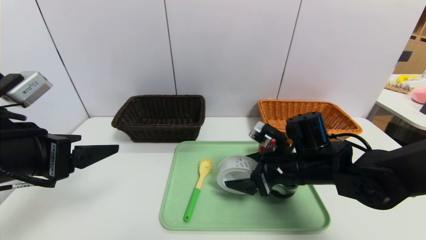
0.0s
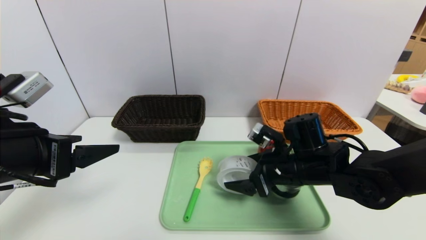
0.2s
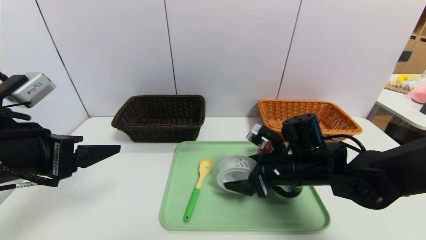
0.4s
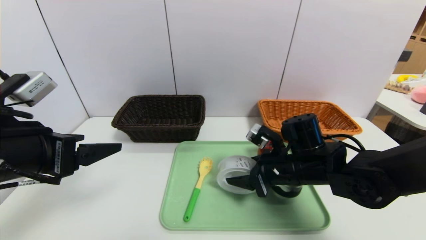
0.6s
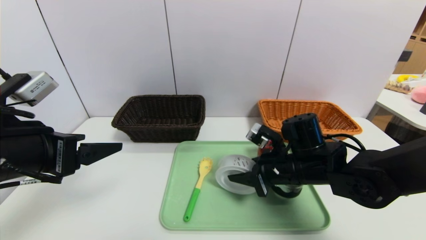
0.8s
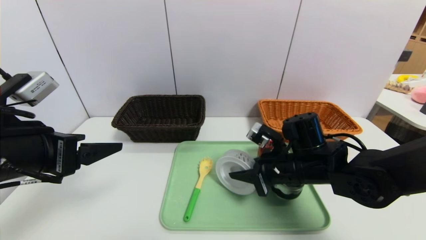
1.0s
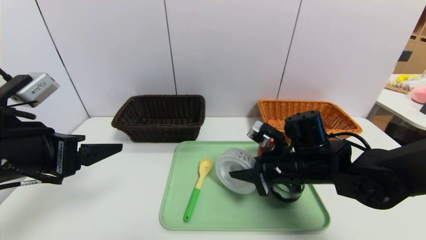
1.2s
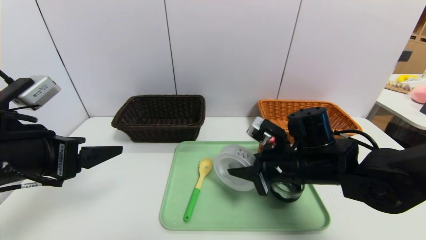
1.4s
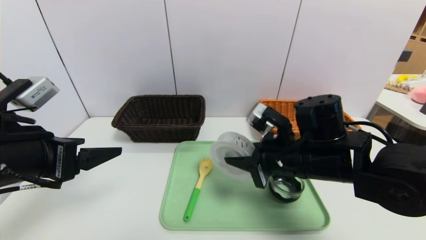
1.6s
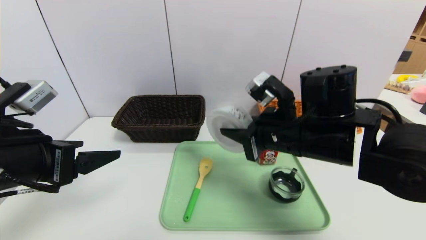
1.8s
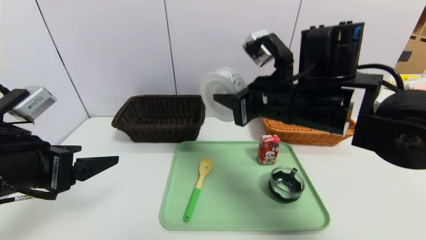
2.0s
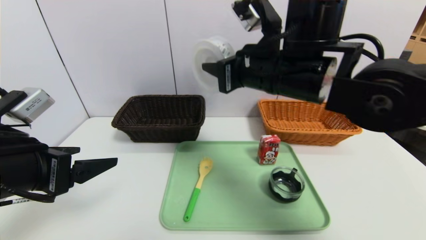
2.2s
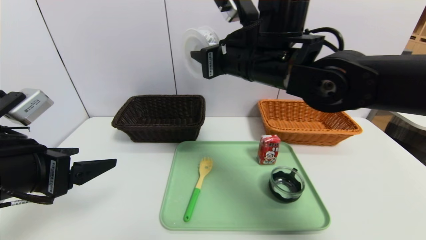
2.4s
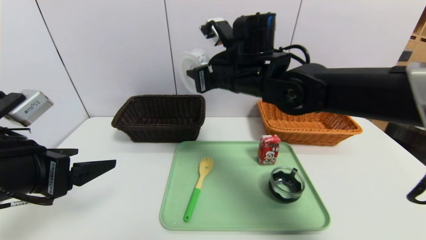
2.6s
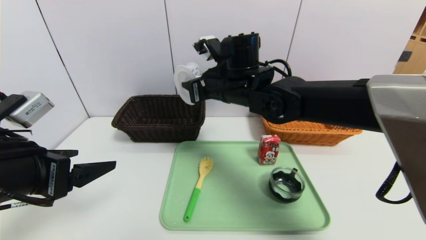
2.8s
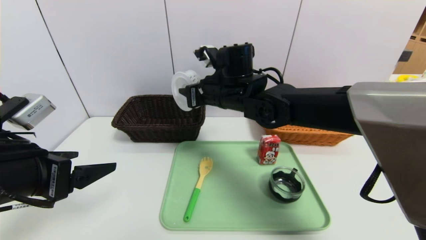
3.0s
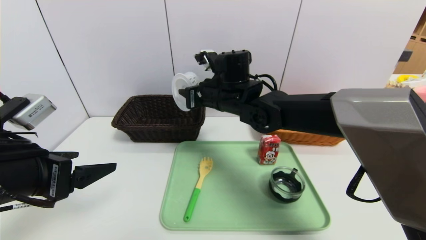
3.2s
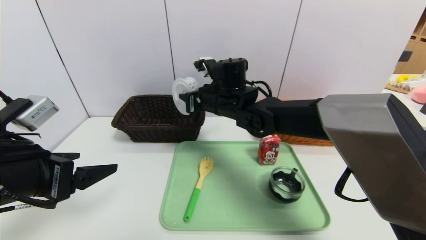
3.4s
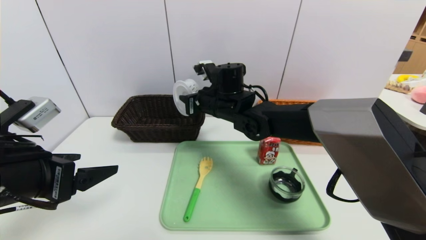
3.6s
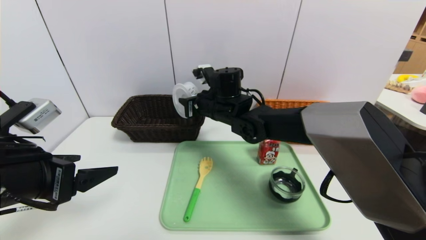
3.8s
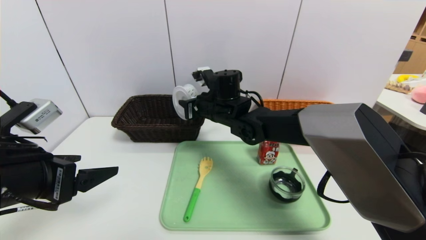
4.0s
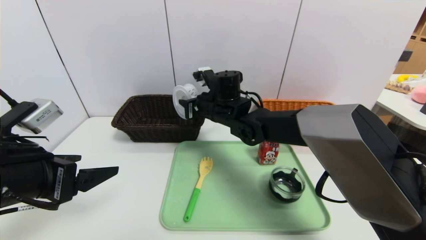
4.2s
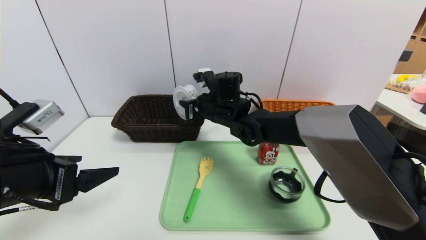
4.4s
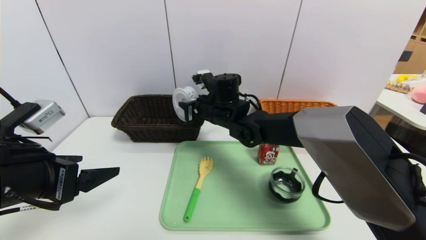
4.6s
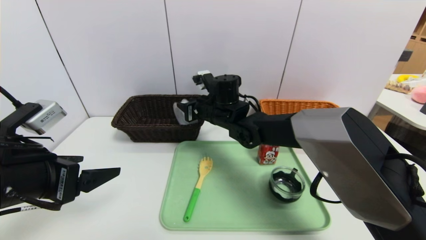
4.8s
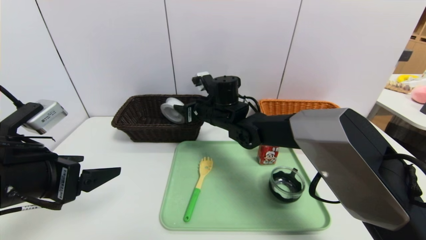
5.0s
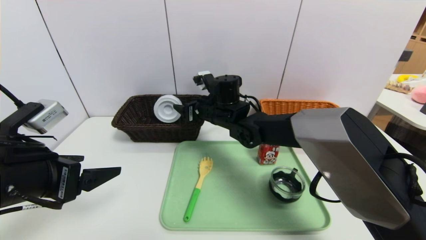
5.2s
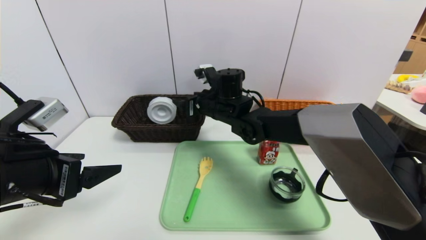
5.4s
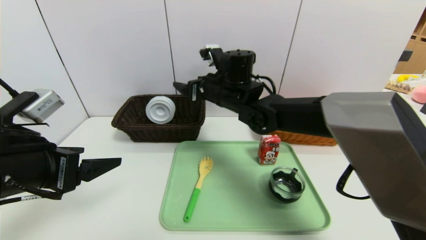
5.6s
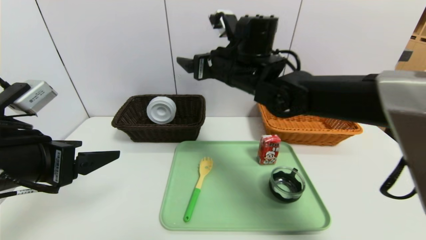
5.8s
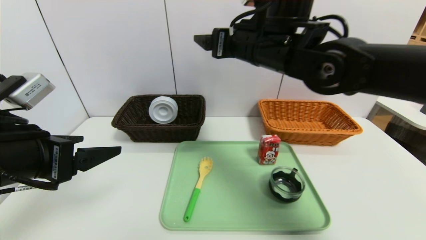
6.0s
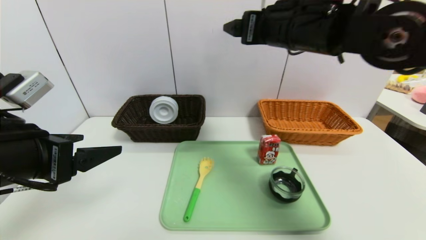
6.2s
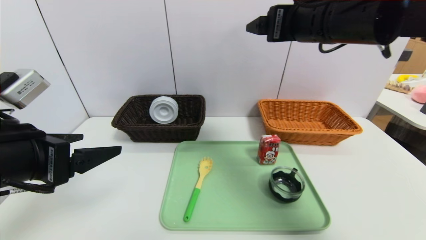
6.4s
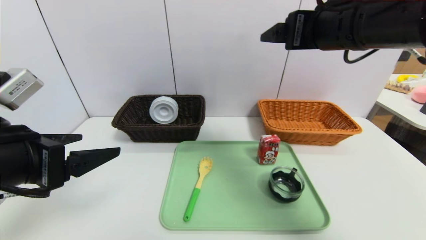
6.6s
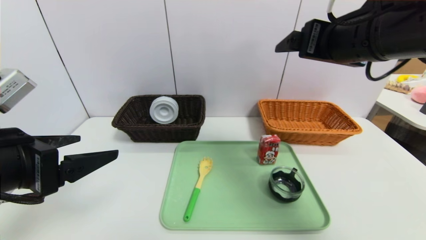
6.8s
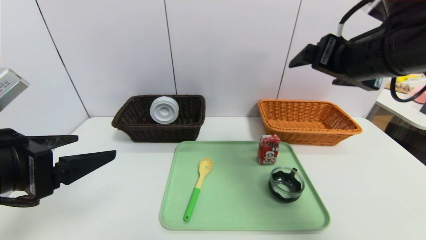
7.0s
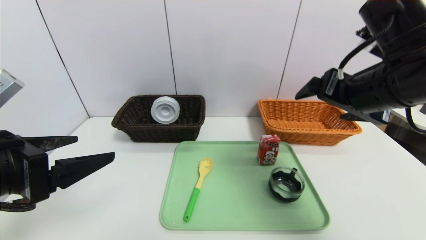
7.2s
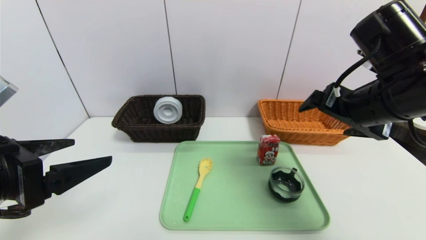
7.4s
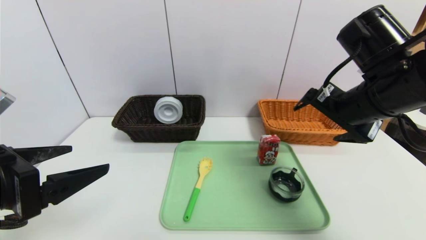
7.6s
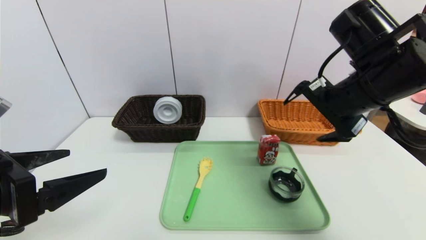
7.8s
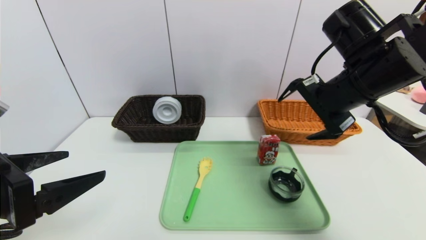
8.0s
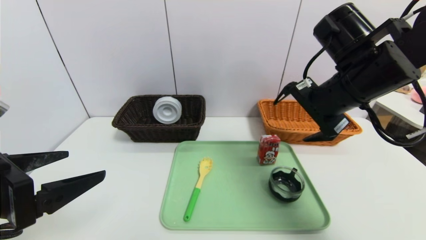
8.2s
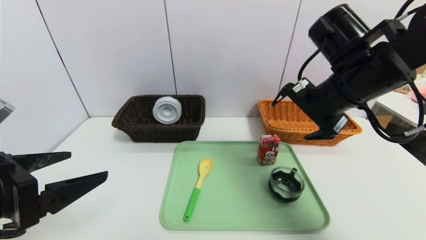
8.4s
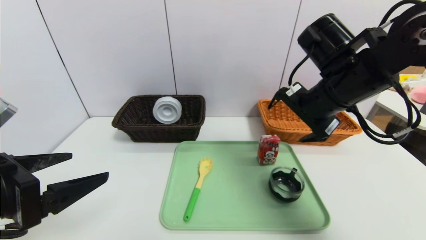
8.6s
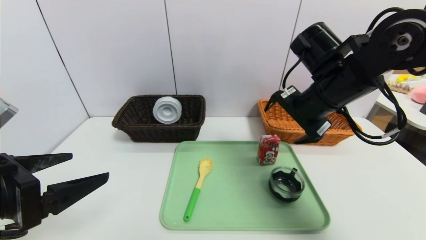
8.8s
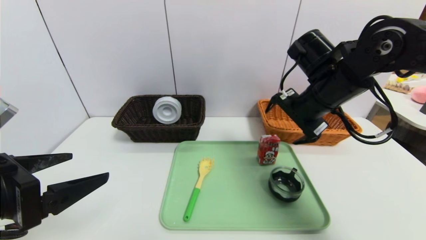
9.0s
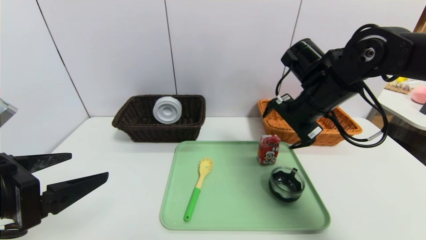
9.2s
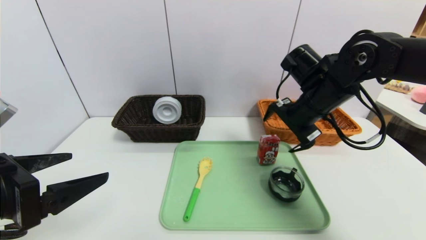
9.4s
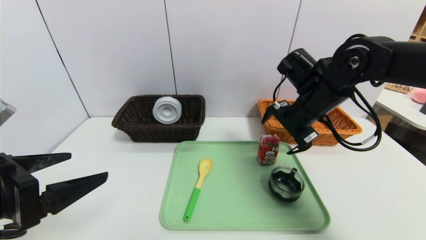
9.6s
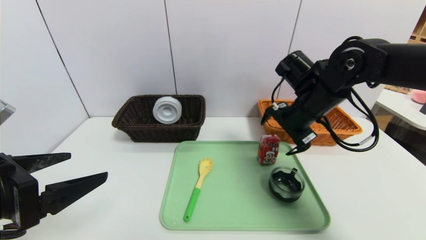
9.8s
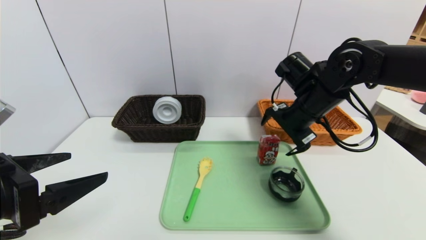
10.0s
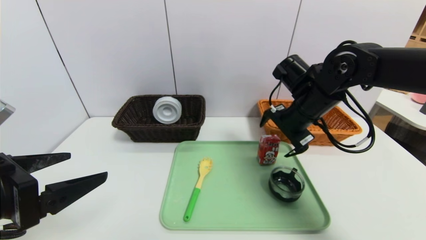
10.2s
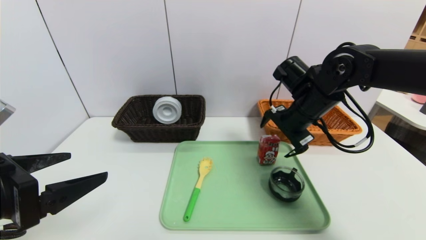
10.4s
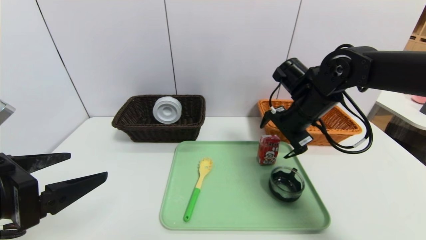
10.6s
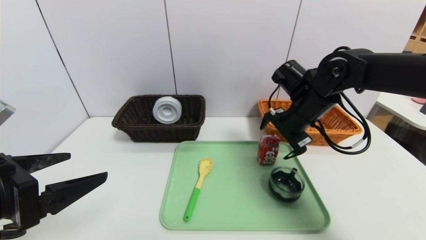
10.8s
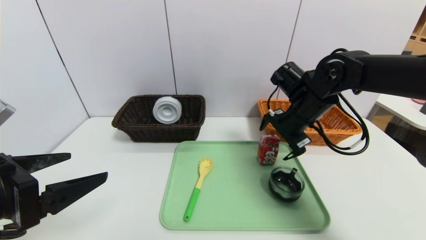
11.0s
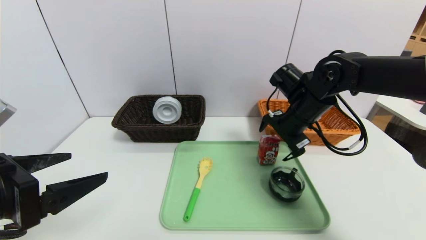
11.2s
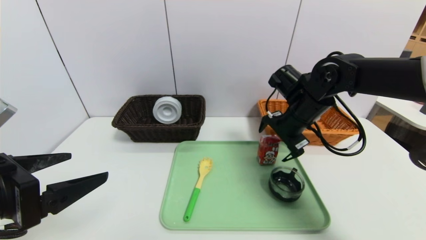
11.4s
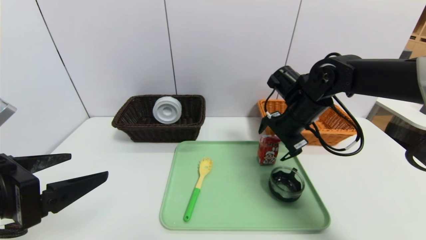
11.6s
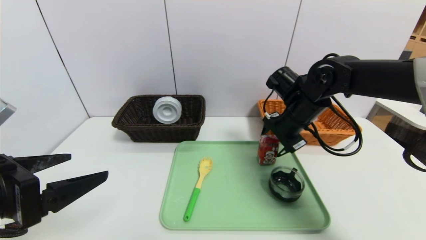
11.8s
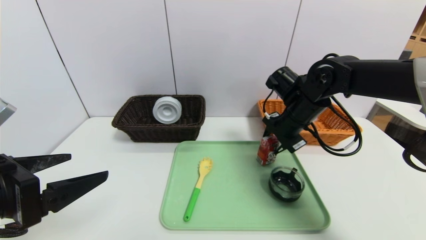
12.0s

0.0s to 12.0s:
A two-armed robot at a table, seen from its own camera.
Task of the whole recording: place the food in the right basket with the right gripper, and place the non food items in the left basket with the left gripper.
0.0s to 1.6s: The right gripper moves upward, roughly 5 cm, and closes.
1.6s to 3.0s: The right gripper is displaced forward, to the left and upward by roughly 20 cm.
3.0s to 4.4s: The right gripper travels downward by roughly 5 cm.
4.4s to 6.0s: The right gripper is displaced upward, to the right and backward by approximately 20 cm, and opens.
6.0s to 7.6s: The right gripper goes about 15 cm to the right and backward.
7.6s to 9.0s: The right gripper moves forward, approximately 5 cm.
9.0s to 10.4s: The right gripper shifts by about 5 cm.
10.4s to 12.0s: The right gripper closes up.

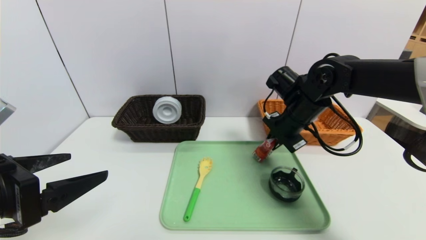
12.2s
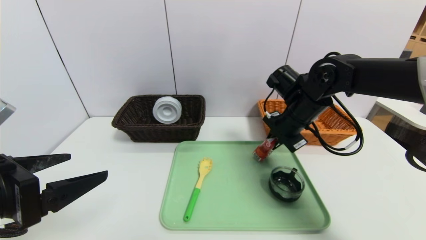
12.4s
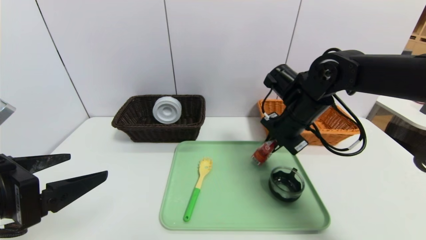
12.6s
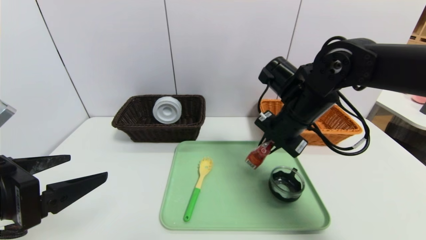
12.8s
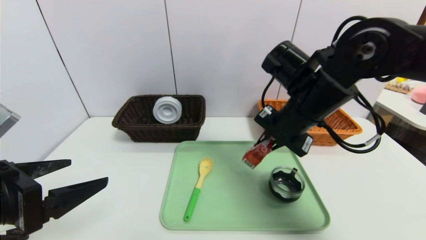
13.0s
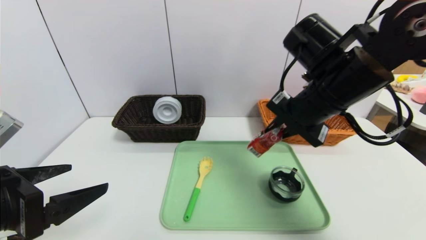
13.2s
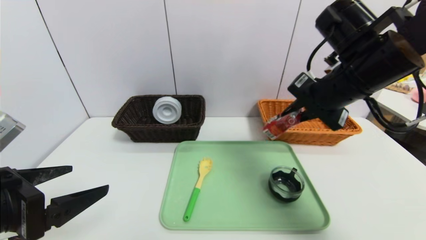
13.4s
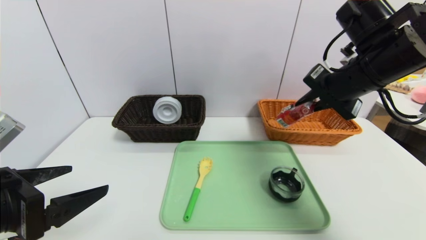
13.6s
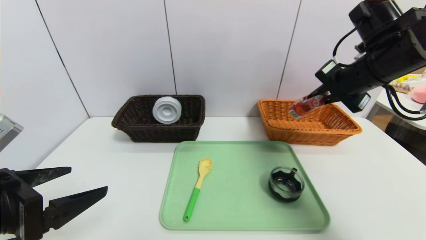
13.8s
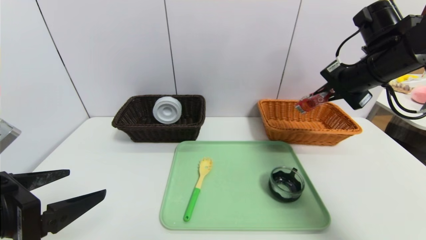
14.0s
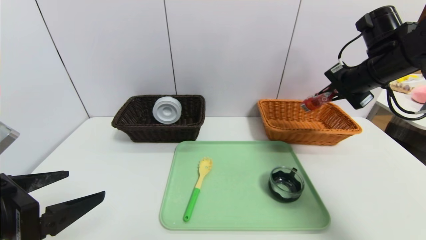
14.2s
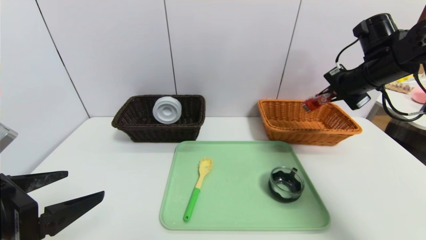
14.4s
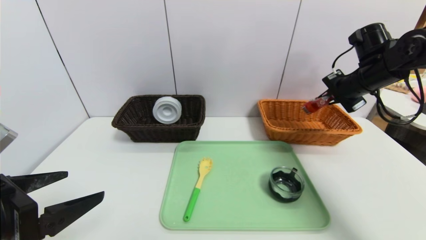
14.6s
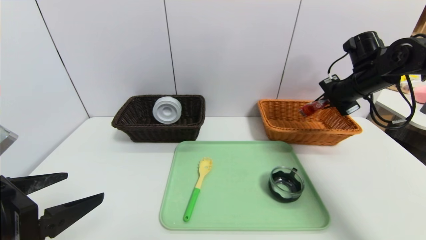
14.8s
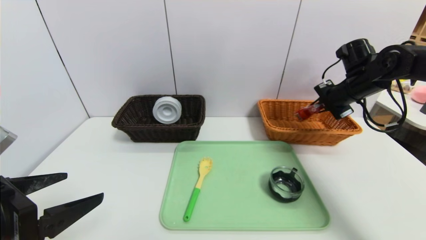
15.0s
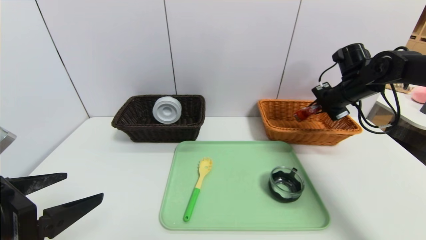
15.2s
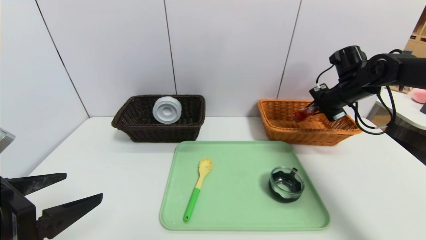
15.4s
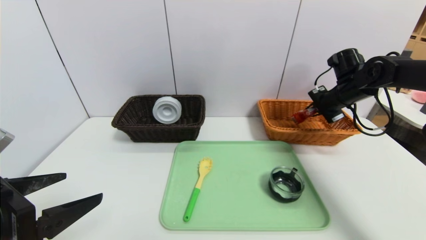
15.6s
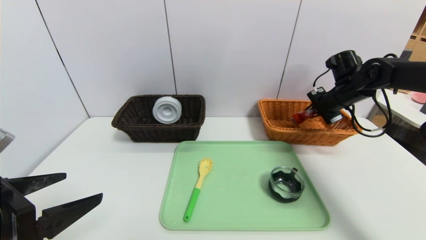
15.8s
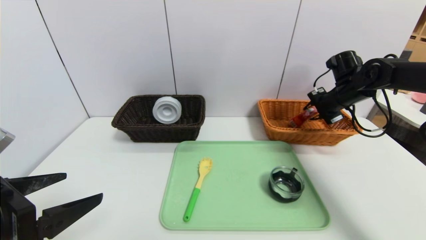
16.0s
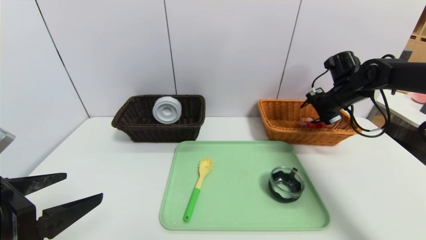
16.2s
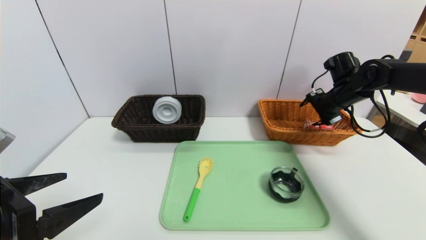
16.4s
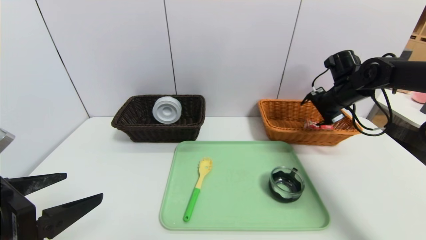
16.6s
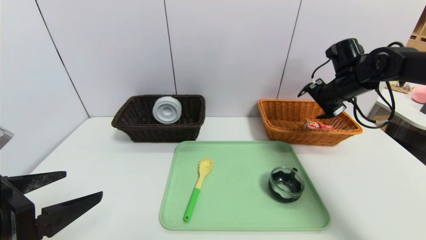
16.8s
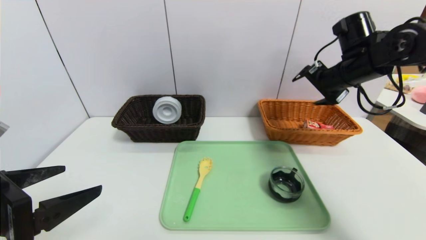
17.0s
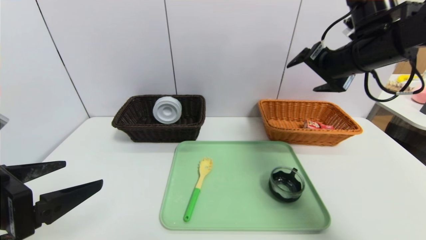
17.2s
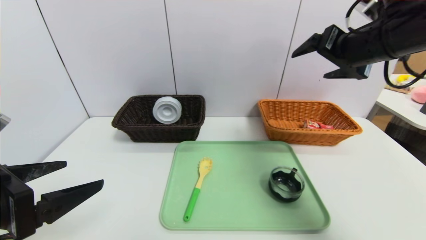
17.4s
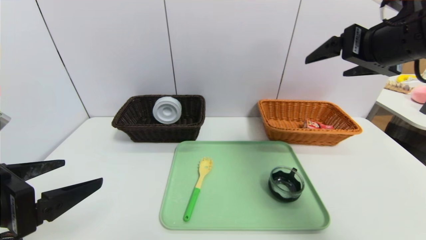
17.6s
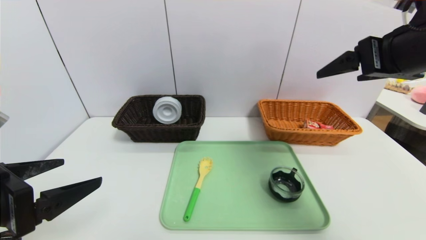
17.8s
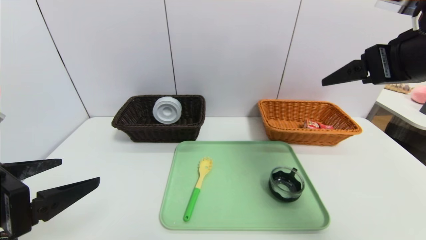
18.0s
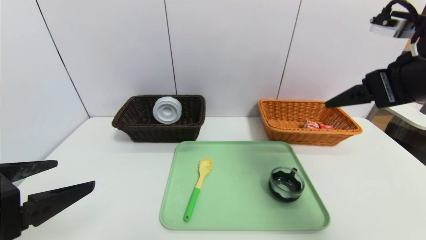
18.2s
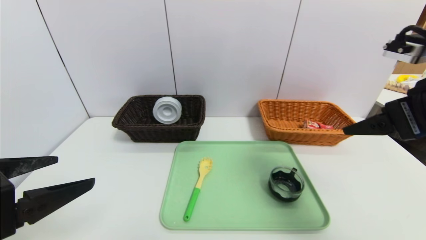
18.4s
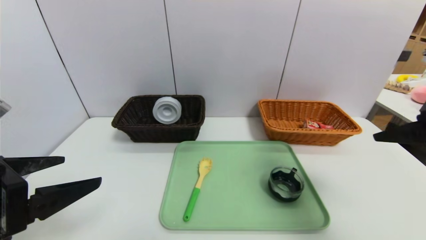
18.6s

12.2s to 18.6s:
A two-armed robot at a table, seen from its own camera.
Task of the whole recording: place the food in the right basket with the right gripper, and place the non food items in the left basket with the left gripper.
Step, 12.2s to 16.6s: Grasp the ad milk and put it in the right basket.
12.2s to 13.8s: The right gripper shifts about 15 cm upward and to the right.
13.8s to 15.4s: The right gripper is displaced forward, downward and to the right by approximately 15 cm.
15.4s to 17.0s: The right gripper moves upward and to the left, about 10 cm, and opens its fingers.
17.0s to 18.6s: The right gripper is displaced backward by roughly 20 cm.
